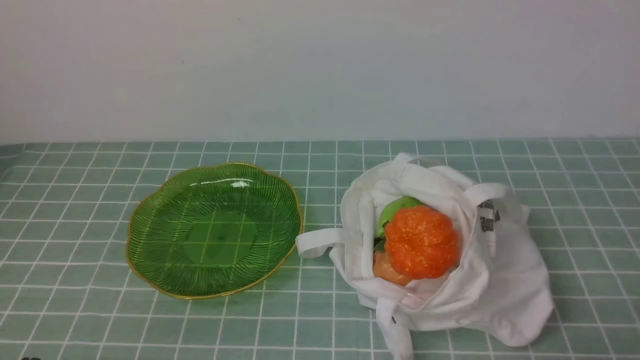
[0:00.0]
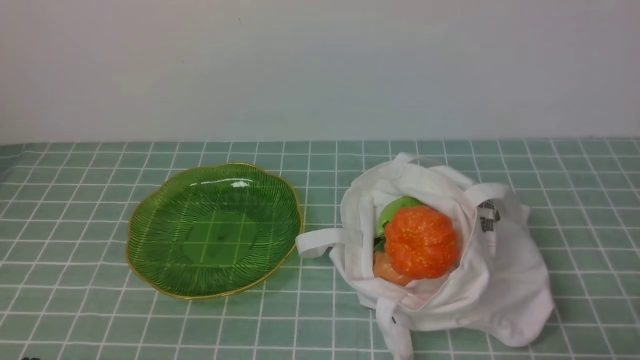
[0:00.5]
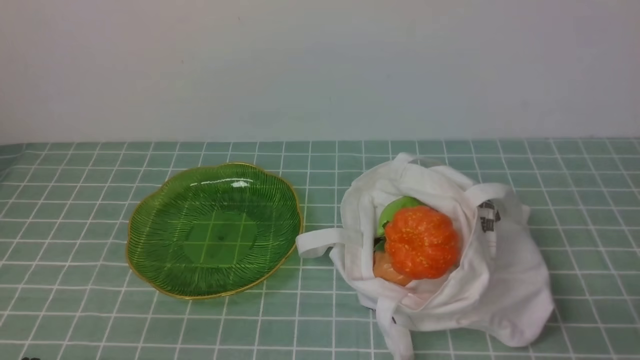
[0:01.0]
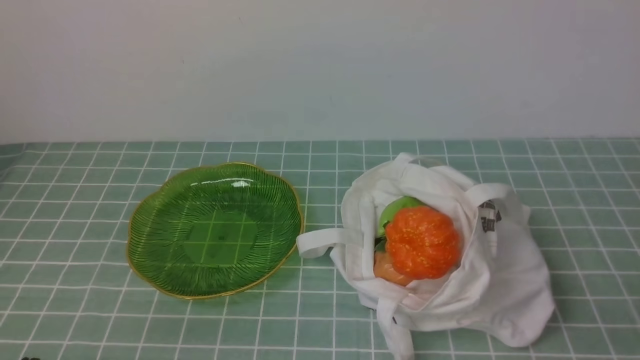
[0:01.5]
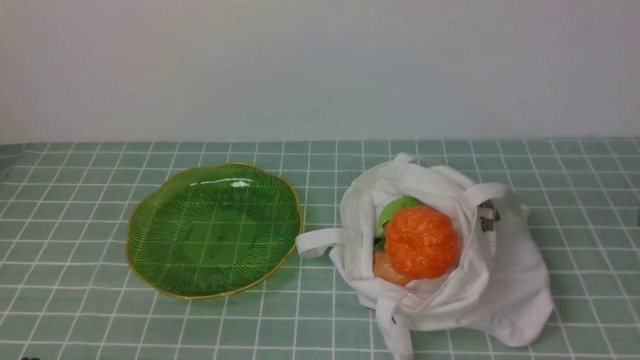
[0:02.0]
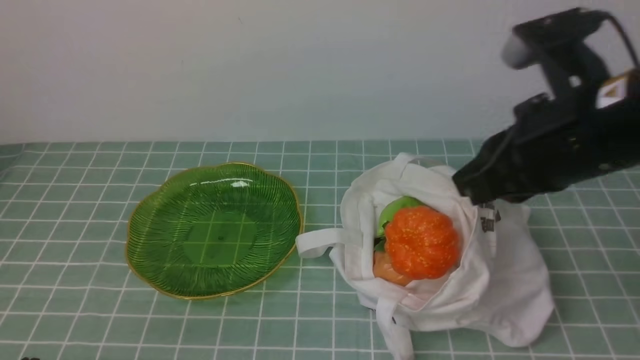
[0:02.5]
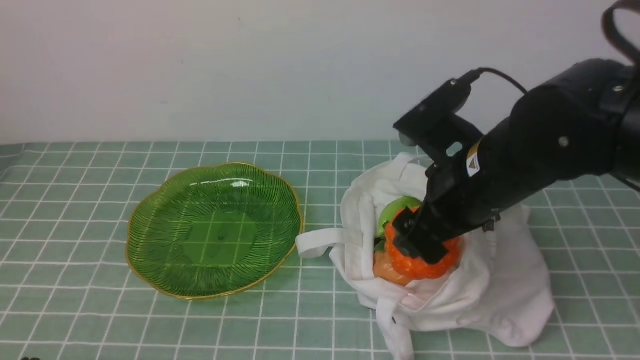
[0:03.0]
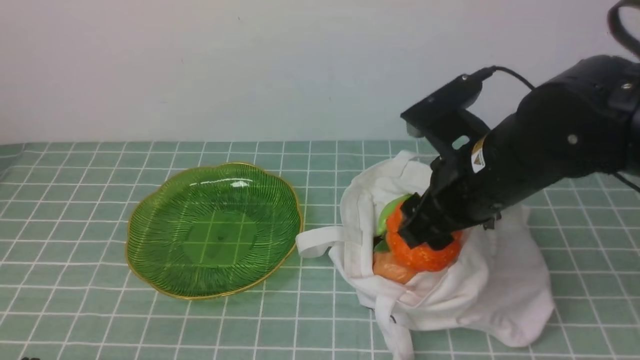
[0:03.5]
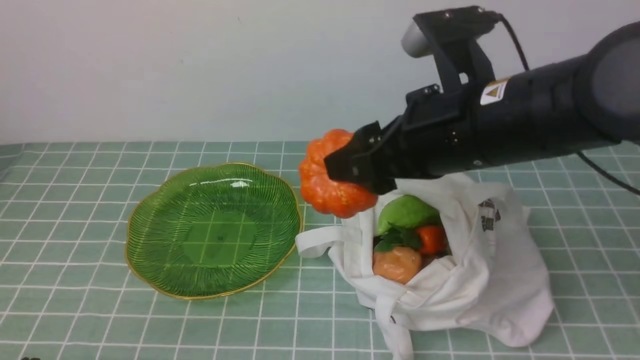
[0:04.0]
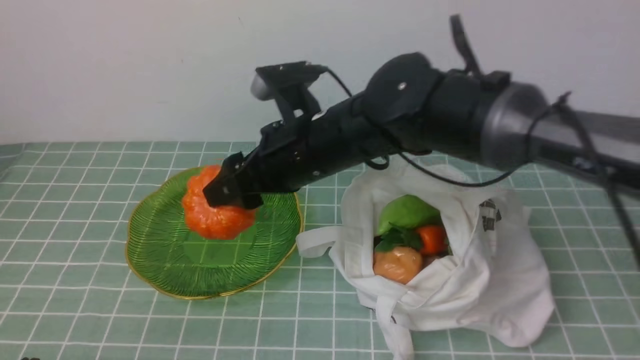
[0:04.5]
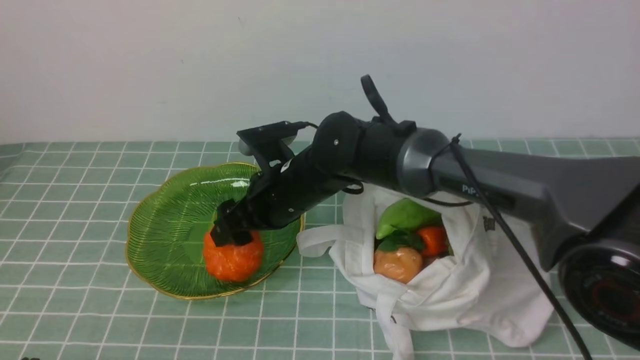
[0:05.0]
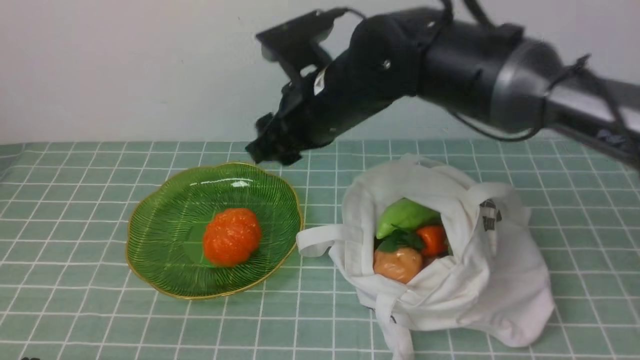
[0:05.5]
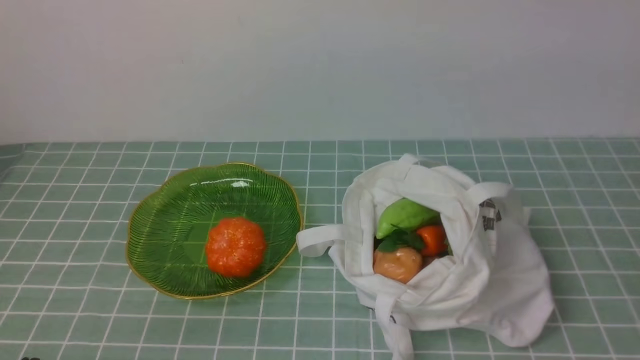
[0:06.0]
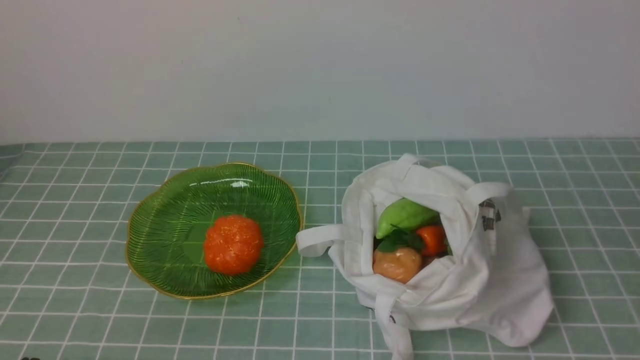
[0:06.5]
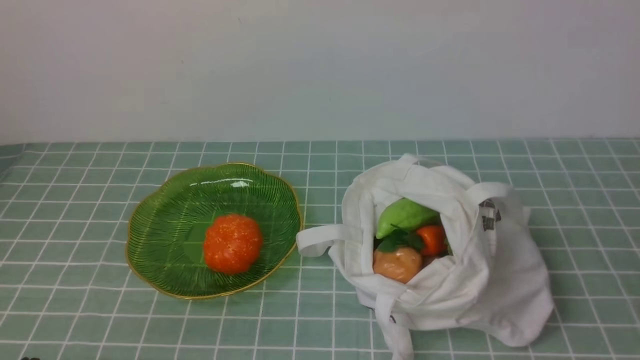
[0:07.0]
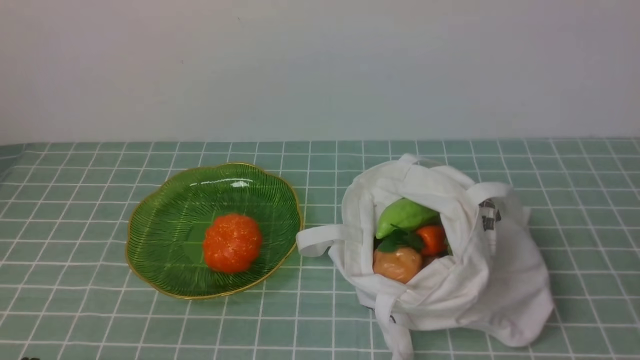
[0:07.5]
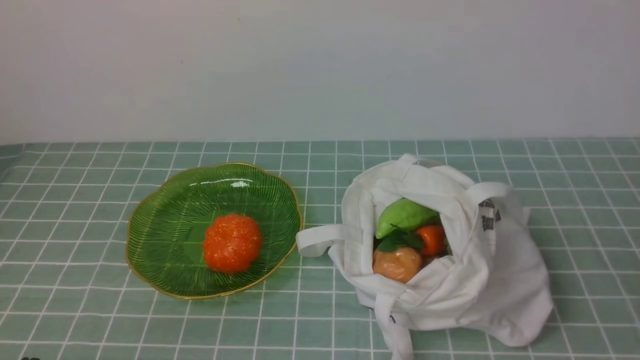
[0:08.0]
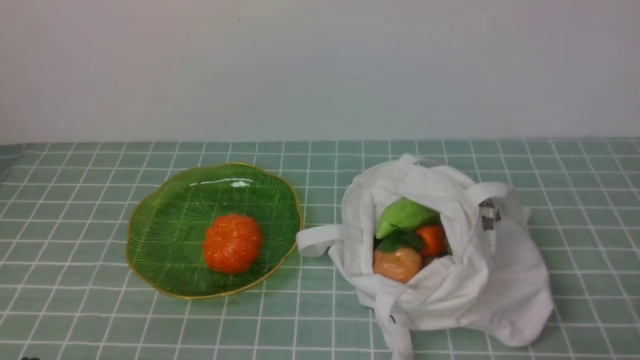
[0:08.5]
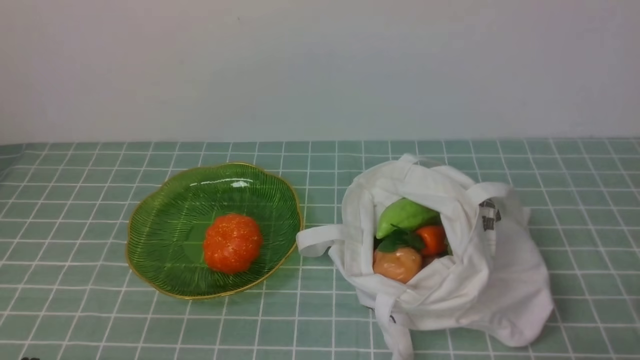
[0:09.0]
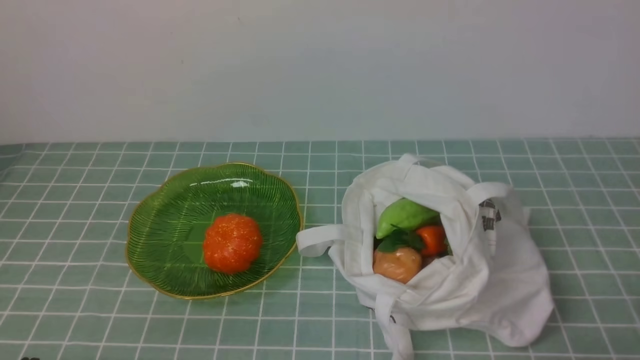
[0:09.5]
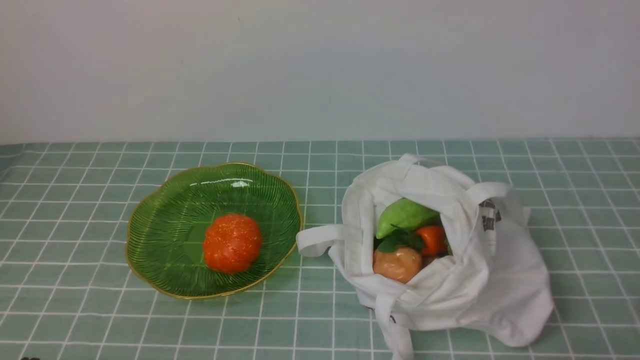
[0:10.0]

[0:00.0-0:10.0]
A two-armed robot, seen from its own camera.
Task of the whole recording: take vegetables from cloth bag on blue coffee tablecloth place on plate.
Step, 0:00.0 to 0:03.0: Grasp the pumpkin with right gripper.
Step, 0:03.5 to 0:05.0: Place the pumpkin on the plate with right gripper.
0:02.0 to 0:04.0: The right gripper shifts roughly 25 cm to the left and forward, and opens up.
0:04.0 to 0:06.0: The right gripper goes roughly 15 cm upward, and closes.

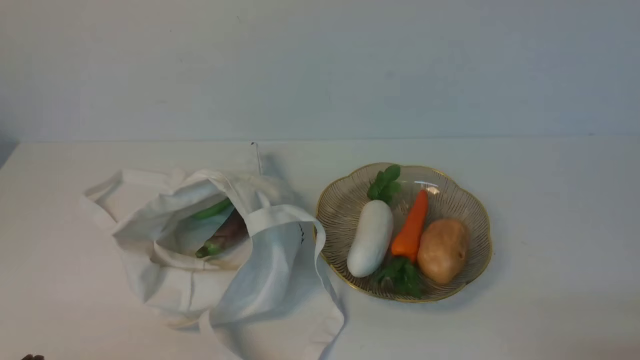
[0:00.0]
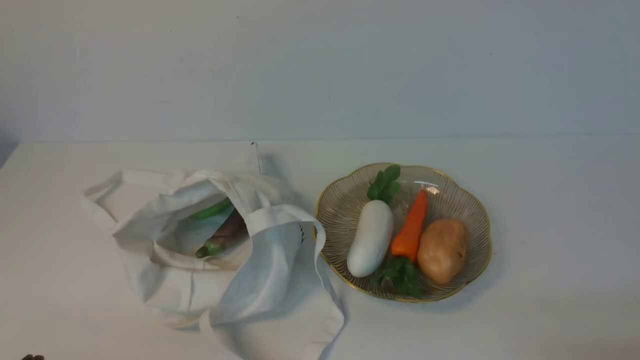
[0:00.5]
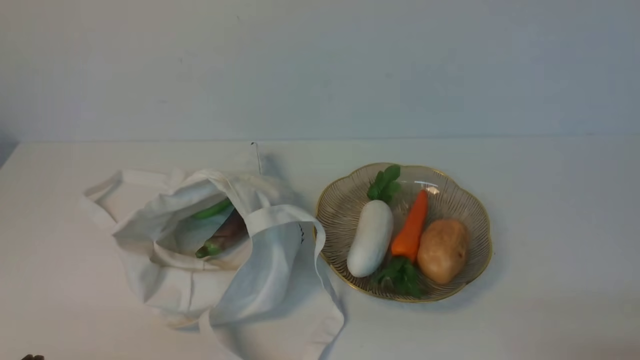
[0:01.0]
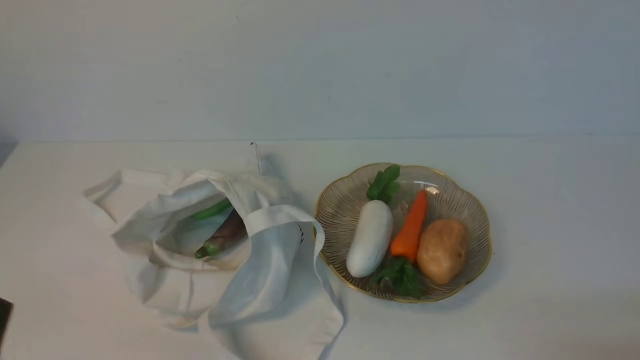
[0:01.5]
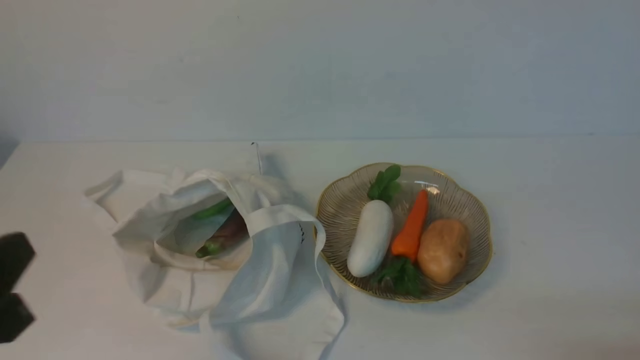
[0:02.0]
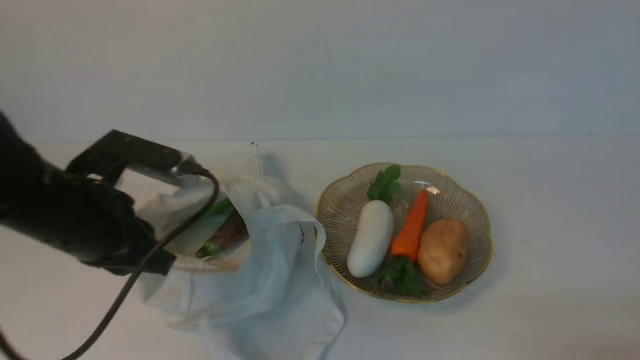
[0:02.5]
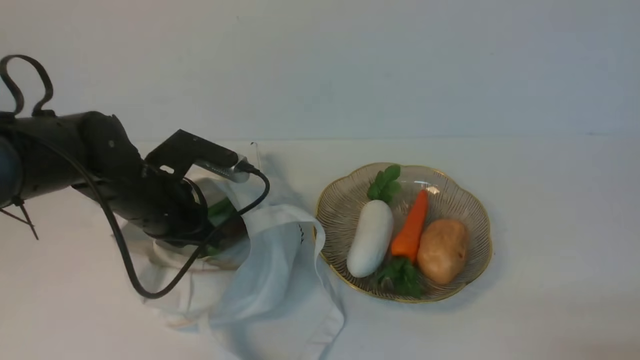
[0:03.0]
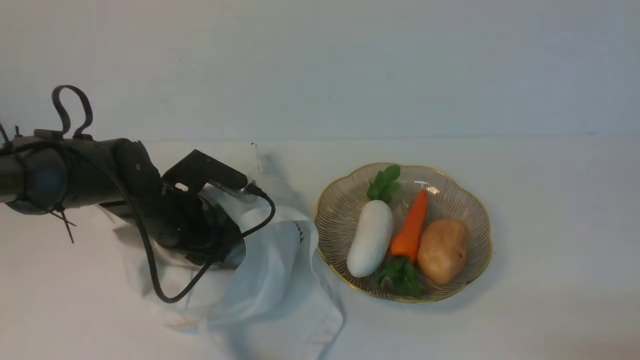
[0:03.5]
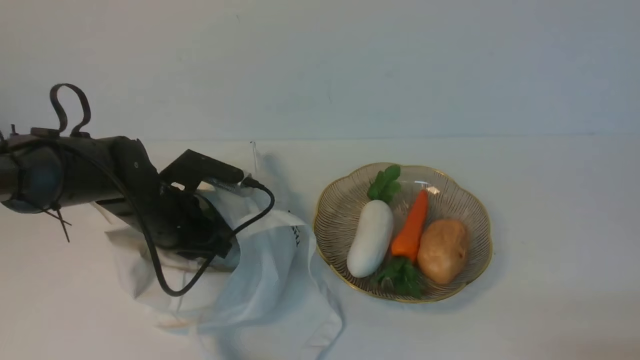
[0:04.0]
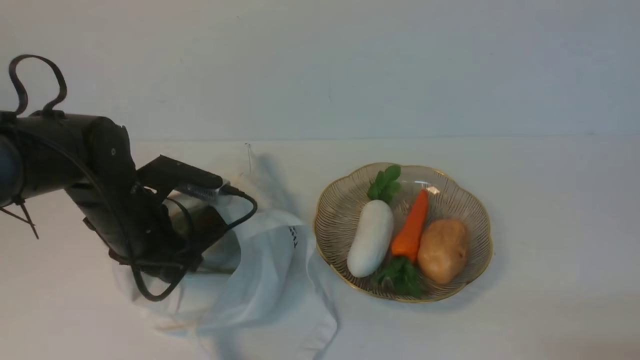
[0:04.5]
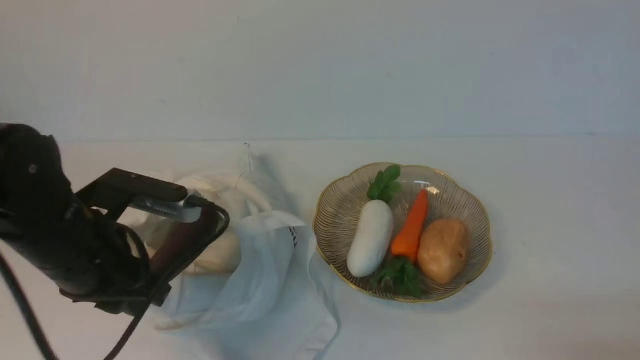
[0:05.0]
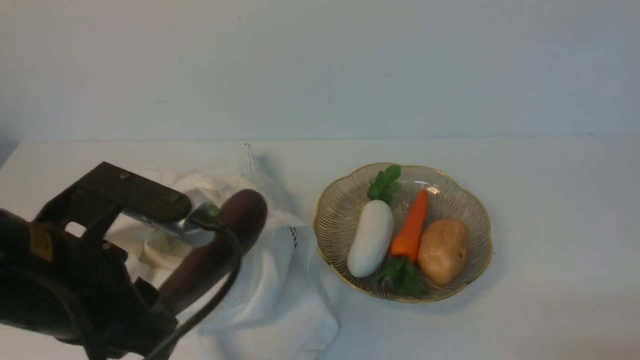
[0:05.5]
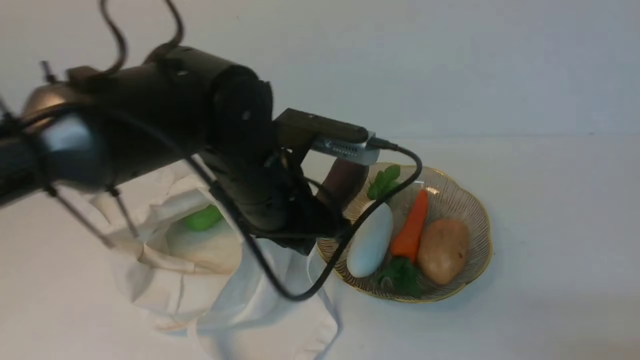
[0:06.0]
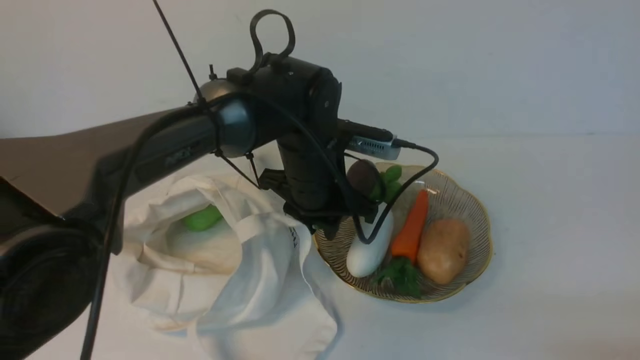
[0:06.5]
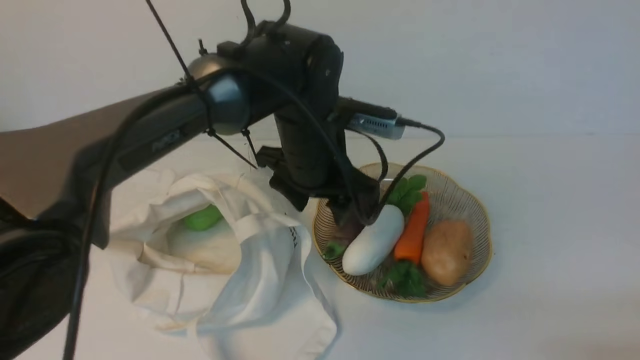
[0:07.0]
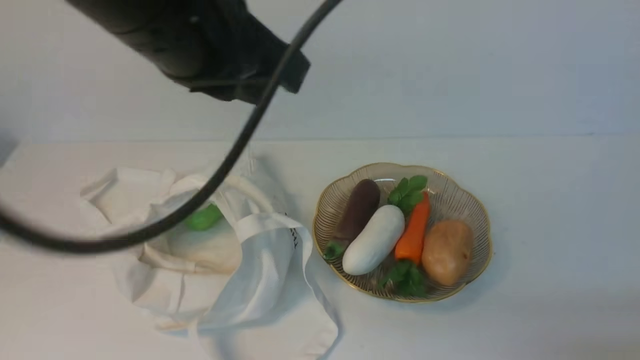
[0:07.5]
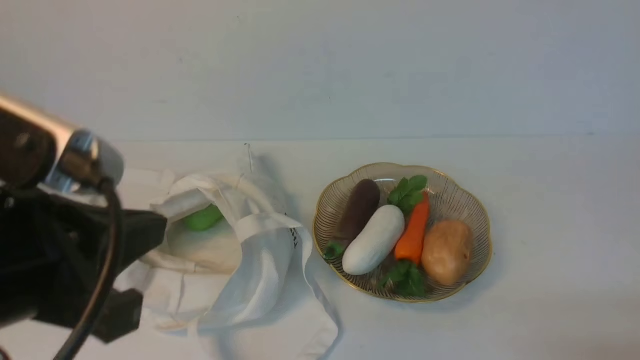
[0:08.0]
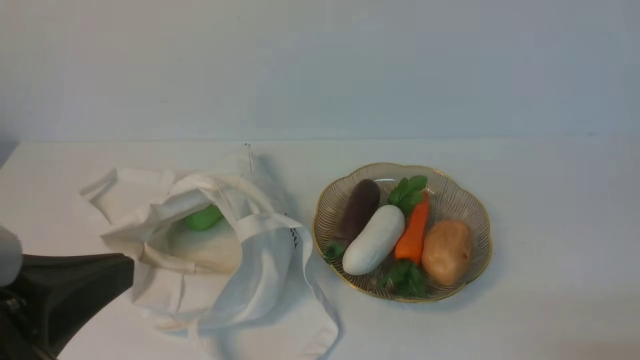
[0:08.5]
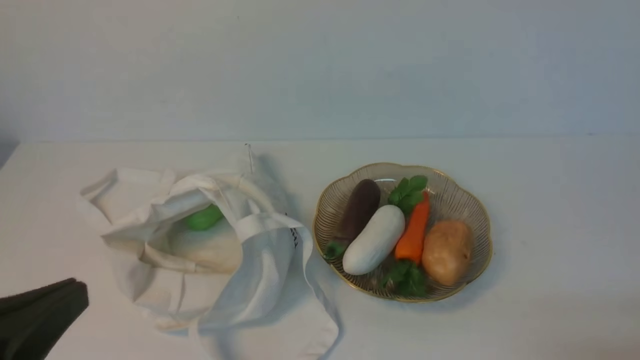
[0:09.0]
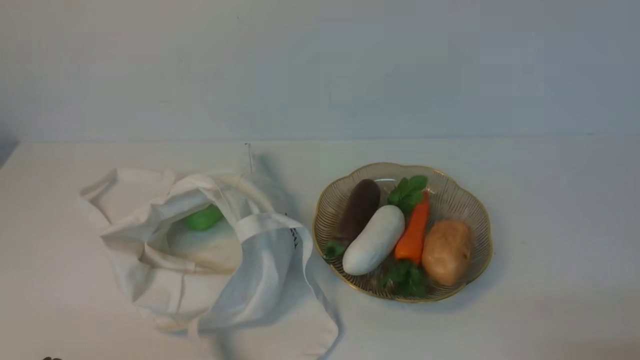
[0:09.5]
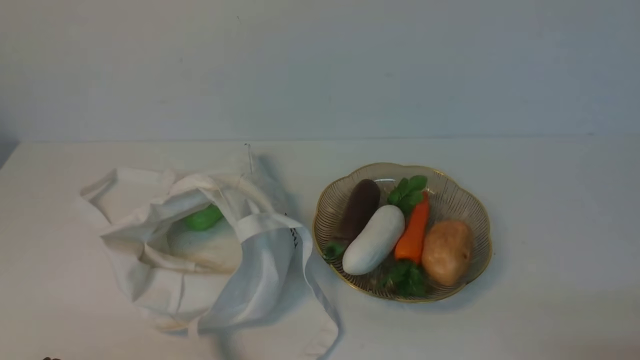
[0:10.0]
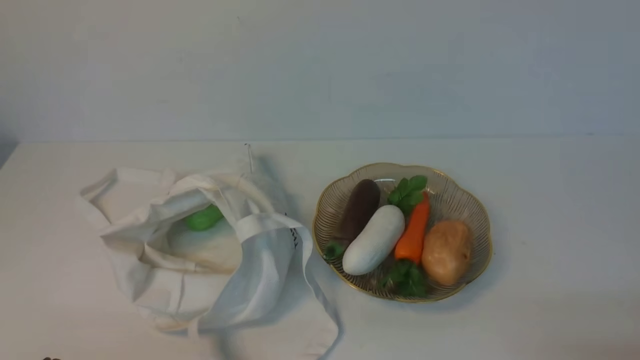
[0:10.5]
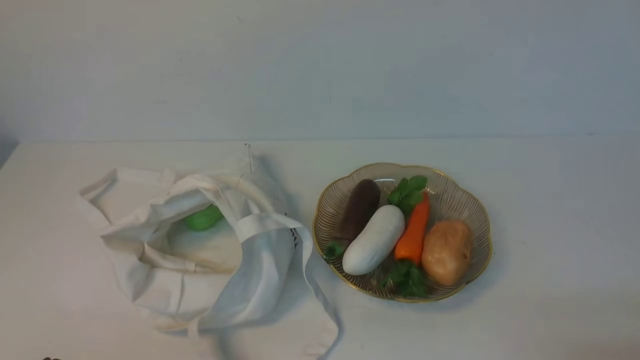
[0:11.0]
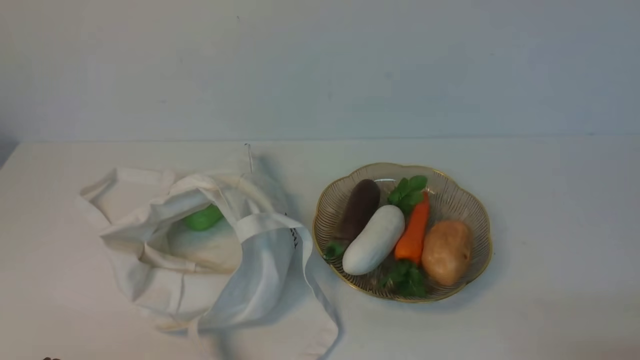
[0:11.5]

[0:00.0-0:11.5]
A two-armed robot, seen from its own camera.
Task of the whole recording: take vegetables from cloth bag on white table place on plate.
0:02.0 to 0:04.0: The left gripper shifts some 30 cm forward and downward, and opens.
0:04.0 to 0:06.0: The left gripper travels upward, to the right and backward by some 20 cm.
0:06.0 to 0:07.5: The left gripper heads upward, covering approximately 15 cm, and closes up.
0:07.5 to 0:09.5: The left gripper moves downward, backward and to the left, approximately 35 cm.
0:09.5 to 0:11.5: Both grippers stay about where they are.
